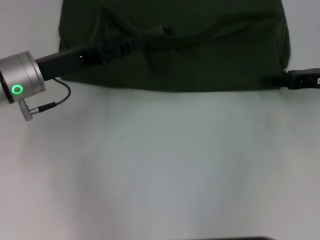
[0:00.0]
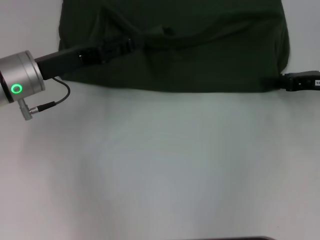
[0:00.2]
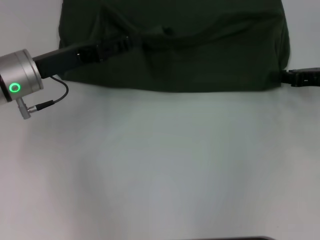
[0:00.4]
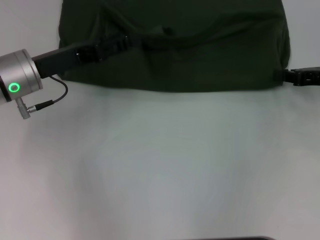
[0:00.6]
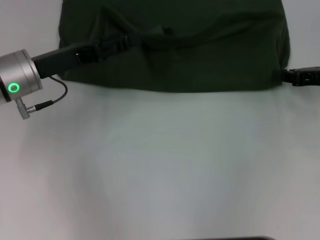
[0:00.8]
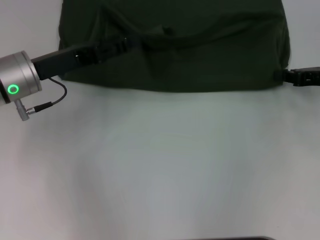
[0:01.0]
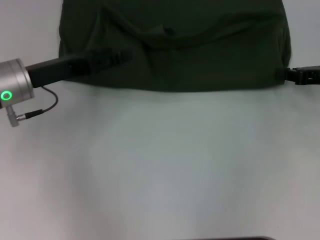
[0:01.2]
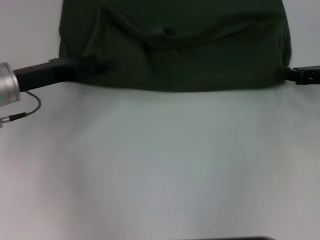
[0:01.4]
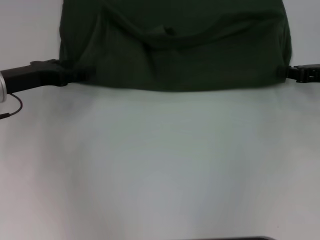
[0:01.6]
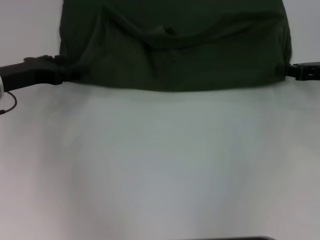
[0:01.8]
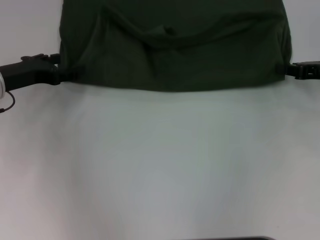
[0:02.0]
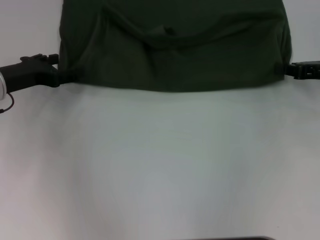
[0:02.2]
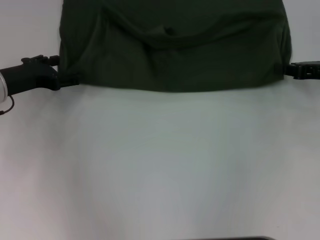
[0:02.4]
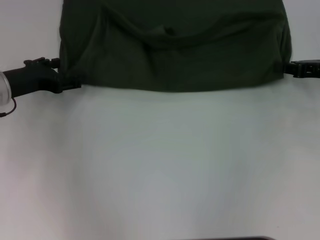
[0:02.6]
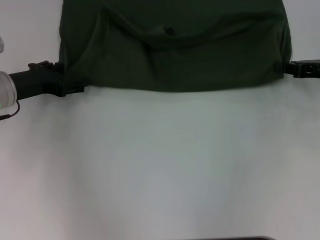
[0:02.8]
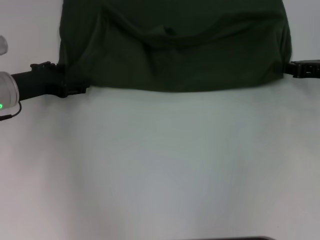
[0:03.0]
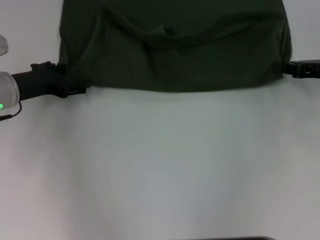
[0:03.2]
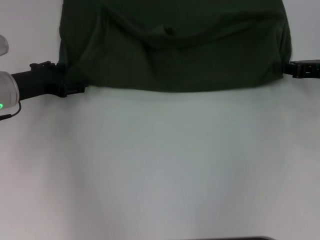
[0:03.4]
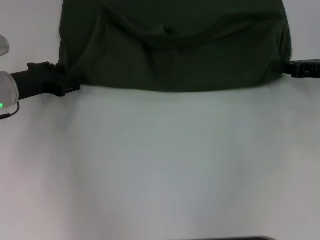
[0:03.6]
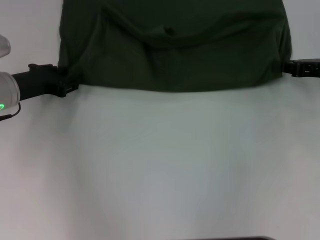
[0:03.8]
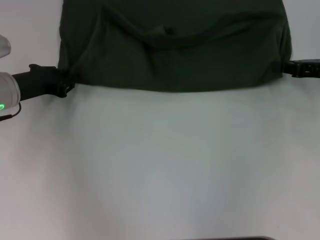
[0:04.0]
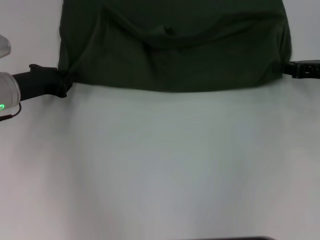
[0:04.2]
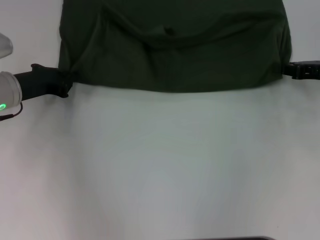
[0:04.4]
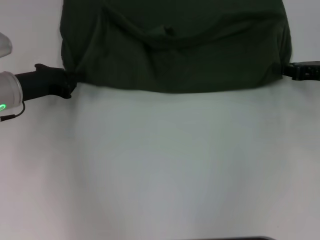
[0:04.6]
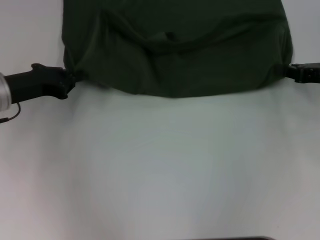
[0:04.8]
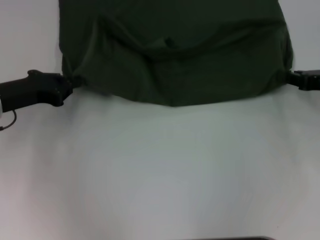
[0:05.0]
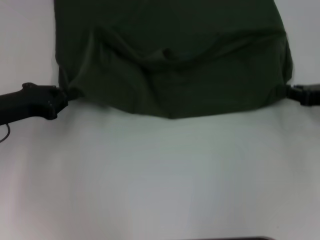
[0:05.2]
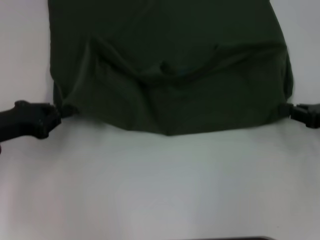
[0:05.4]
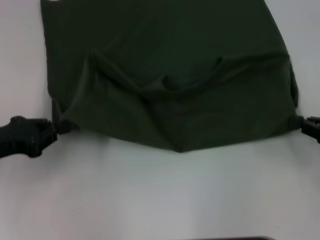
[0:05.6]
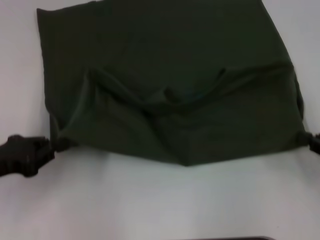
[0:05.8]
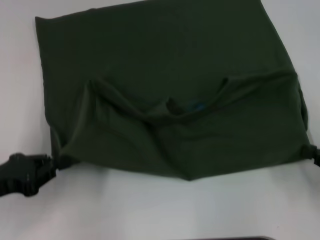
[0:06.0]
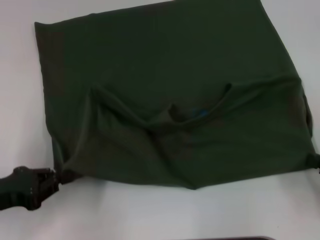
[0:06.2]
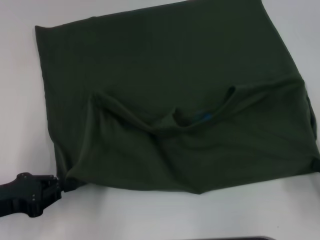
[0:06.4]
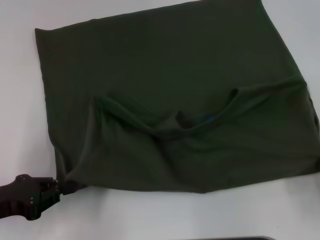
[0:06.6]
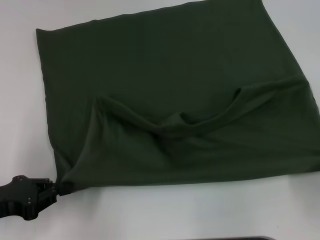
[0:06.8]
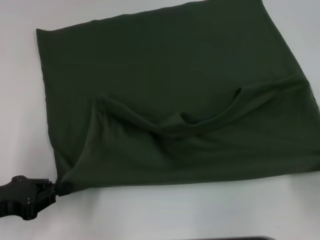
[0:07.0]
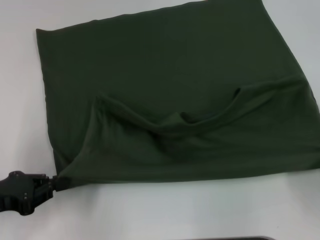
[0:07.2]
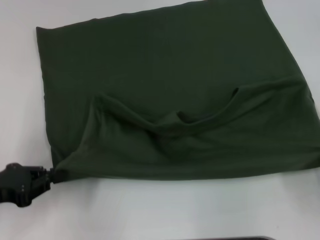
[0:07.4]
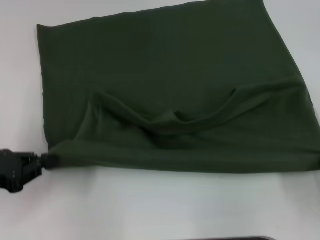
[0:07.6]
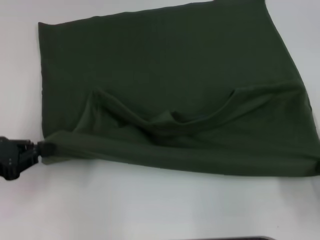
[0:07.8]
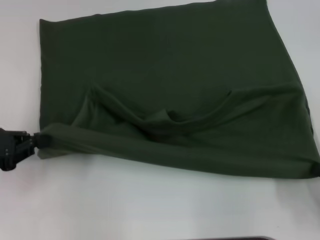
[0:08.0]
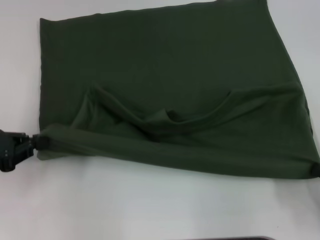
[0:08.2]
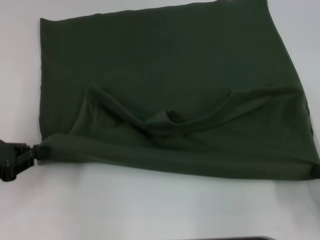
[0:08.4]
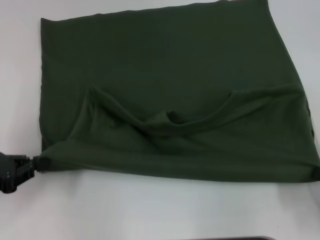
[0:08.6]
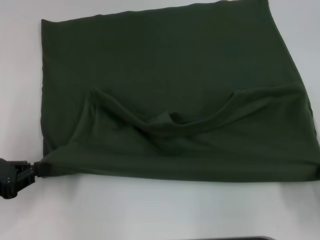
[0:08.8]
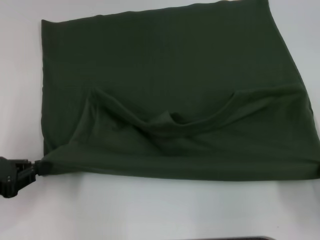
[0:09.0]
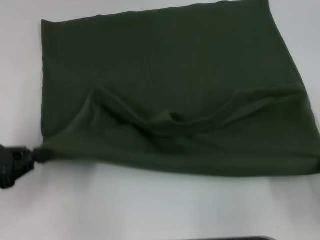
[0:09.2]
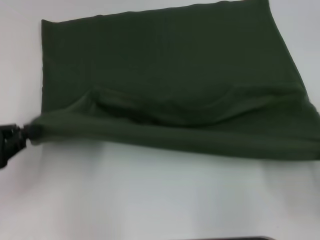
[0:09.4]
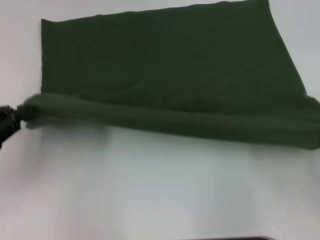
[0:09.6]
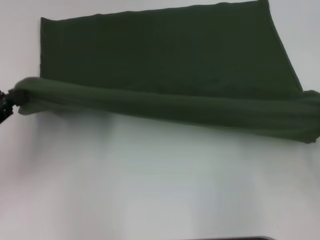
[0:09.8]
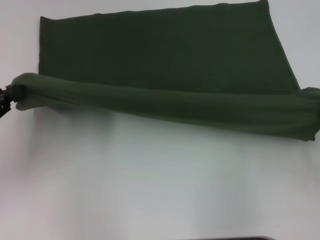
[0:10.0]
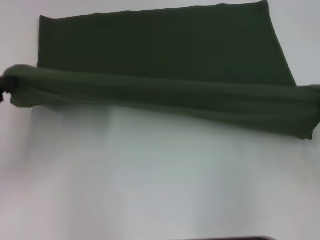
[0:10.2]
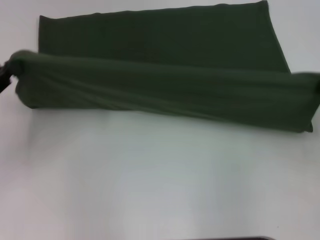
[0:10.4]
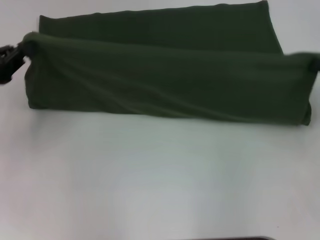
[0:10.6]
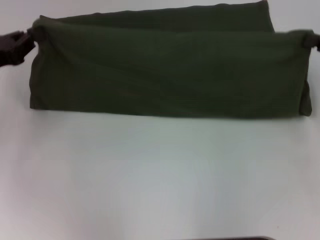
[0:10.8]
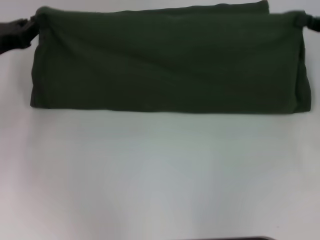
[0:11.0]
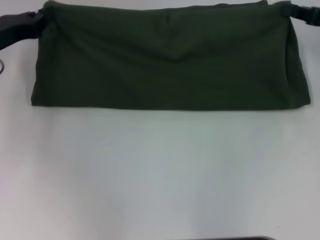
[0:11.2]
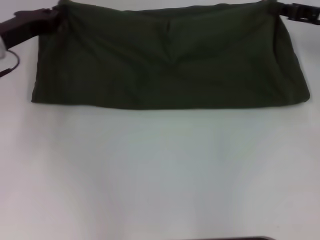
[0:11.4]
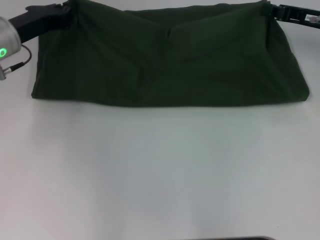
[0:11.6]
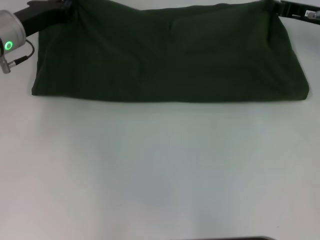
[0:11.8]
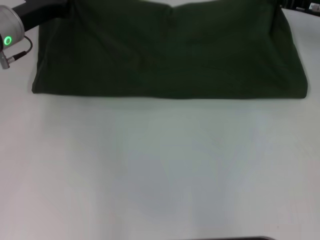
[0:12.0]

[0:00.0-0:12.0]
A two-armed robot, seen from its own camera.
Step, 0:00.0 to 0:07.4: Pull the clothes with your left hand.
Step, 0:00.0 to 0:07.4: Pull the clothes with your right hand.
0:00.0 to 0:01.6: The right gripper closes its fingers. The left gripper is displaced to the left by roughly 5 cm.
0:03.0 to 0:04.4: The left gripper closes its fingers.
0:04.4 to 0:06.0: The two grippers go about 15 cm backward.
0:06.0 to 0:09.0: The grippers make only small movements.
0:09.0 to 0:10.4: The left gripper travels forward by some 5 cm; the right gripper is displaced forward and upward by some 10 cm.
0:10.4 to 0:12.0: The right gripper travels forward by roughly 20 cm. The left gripper heads forward and to the right, covering roughly 20 cm.

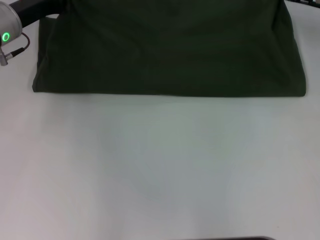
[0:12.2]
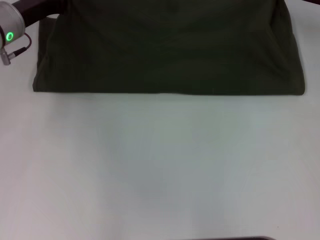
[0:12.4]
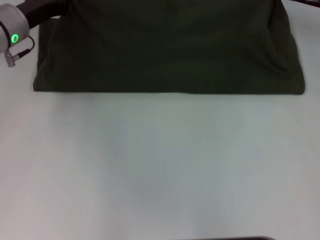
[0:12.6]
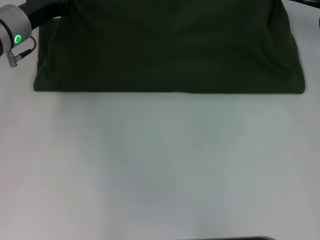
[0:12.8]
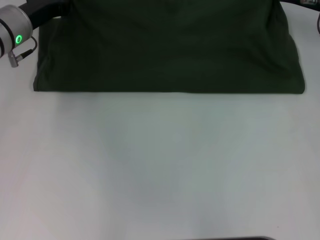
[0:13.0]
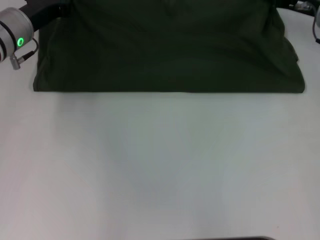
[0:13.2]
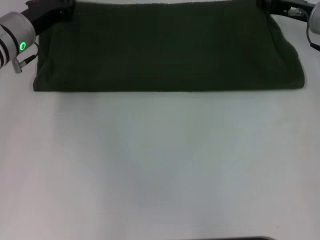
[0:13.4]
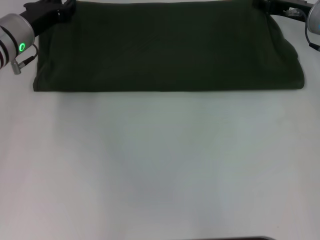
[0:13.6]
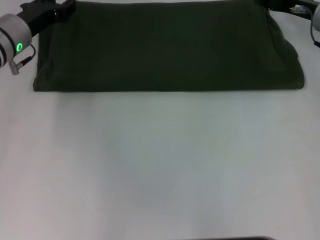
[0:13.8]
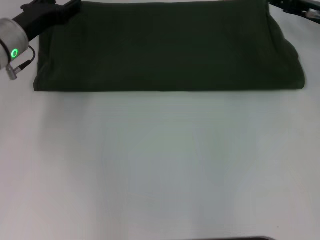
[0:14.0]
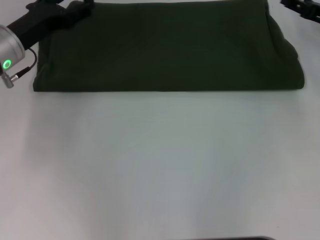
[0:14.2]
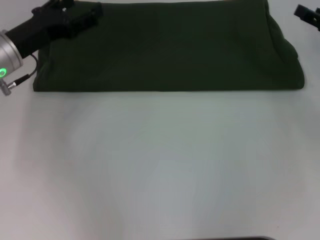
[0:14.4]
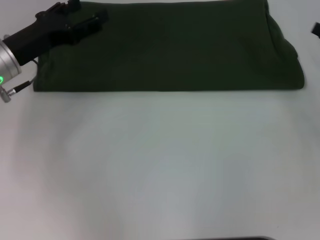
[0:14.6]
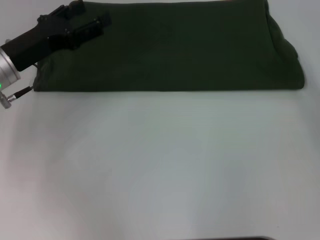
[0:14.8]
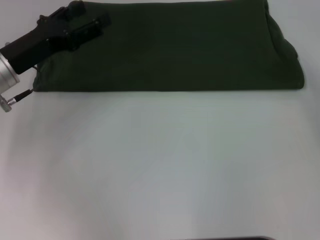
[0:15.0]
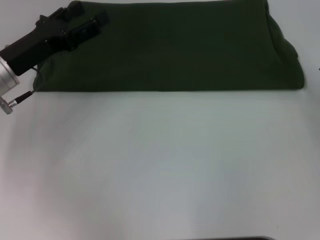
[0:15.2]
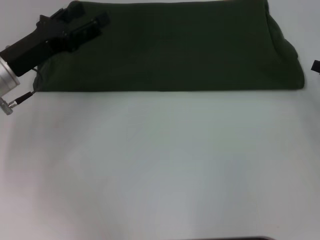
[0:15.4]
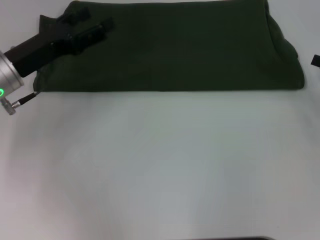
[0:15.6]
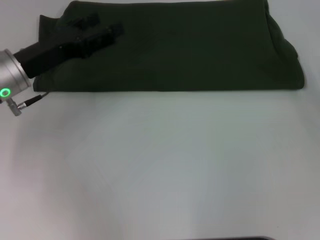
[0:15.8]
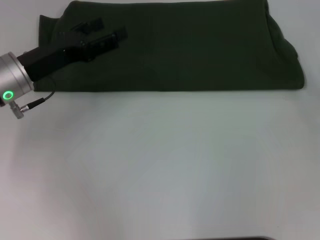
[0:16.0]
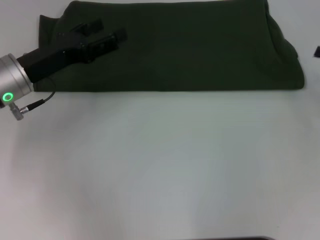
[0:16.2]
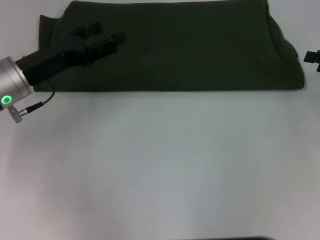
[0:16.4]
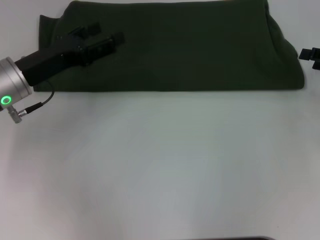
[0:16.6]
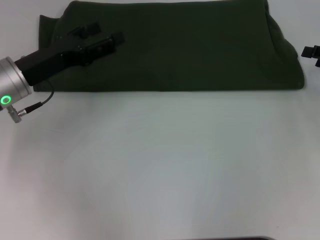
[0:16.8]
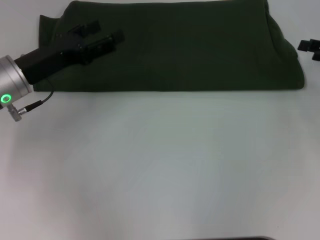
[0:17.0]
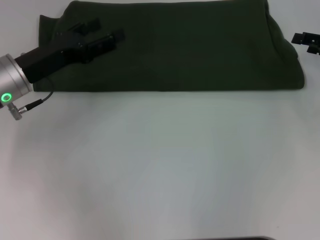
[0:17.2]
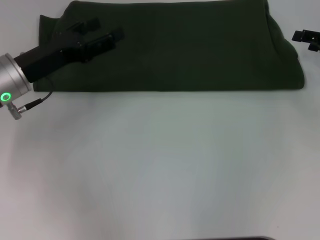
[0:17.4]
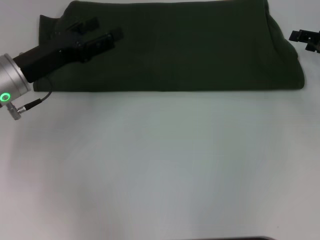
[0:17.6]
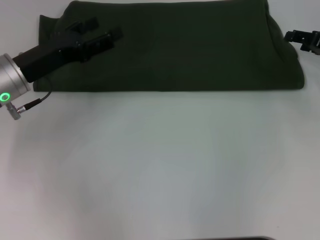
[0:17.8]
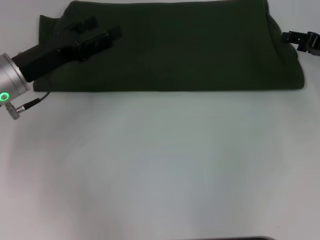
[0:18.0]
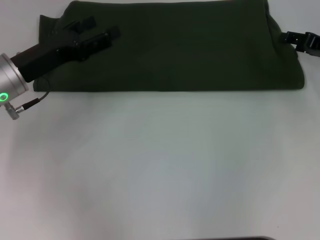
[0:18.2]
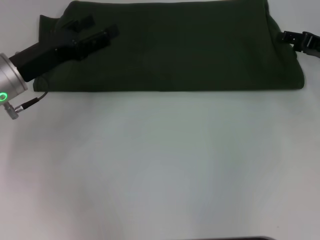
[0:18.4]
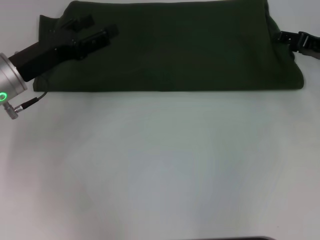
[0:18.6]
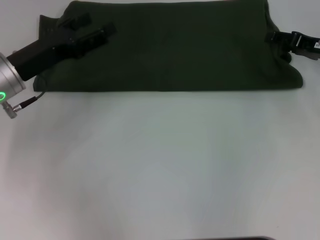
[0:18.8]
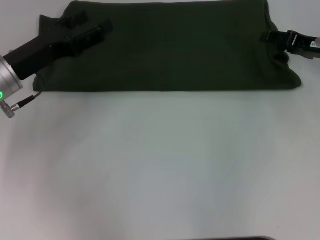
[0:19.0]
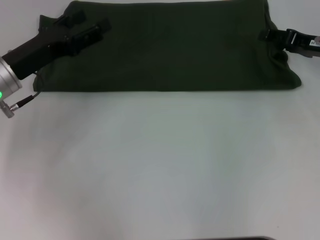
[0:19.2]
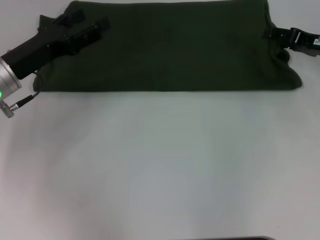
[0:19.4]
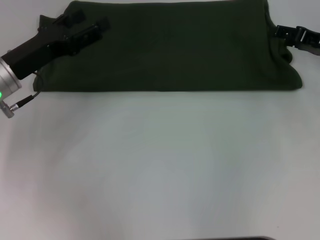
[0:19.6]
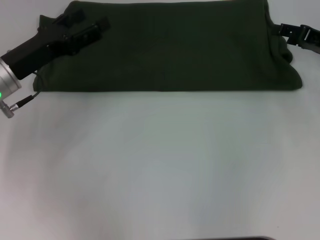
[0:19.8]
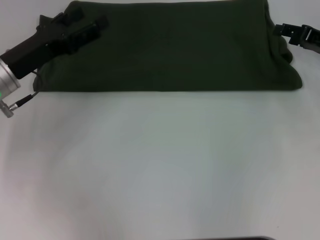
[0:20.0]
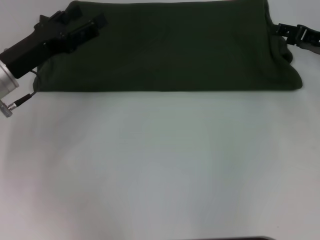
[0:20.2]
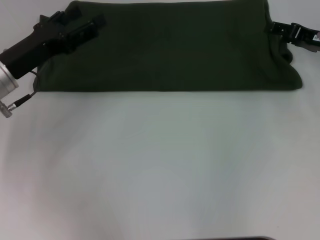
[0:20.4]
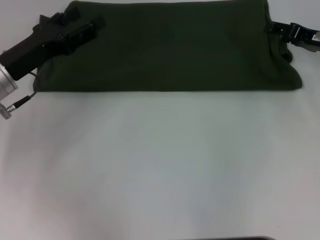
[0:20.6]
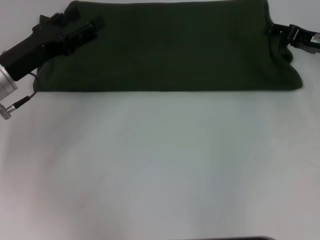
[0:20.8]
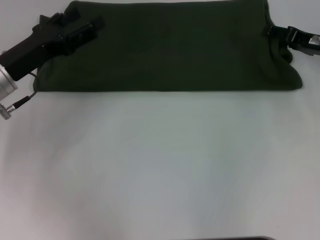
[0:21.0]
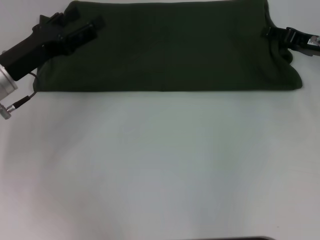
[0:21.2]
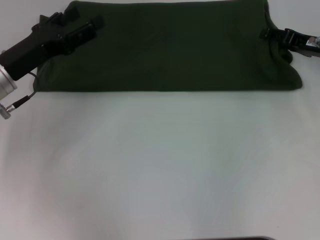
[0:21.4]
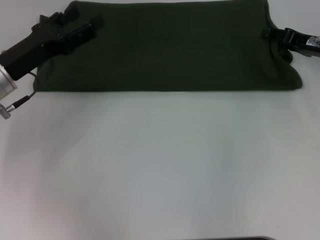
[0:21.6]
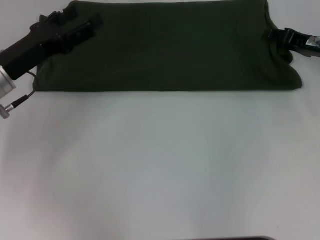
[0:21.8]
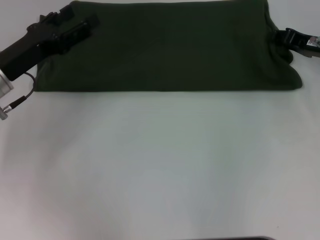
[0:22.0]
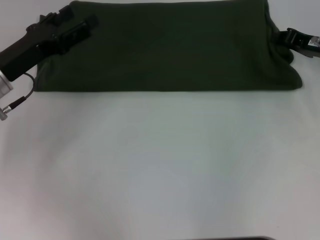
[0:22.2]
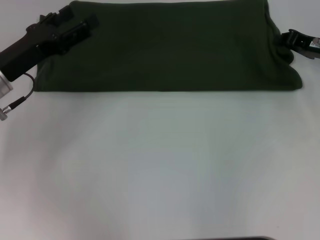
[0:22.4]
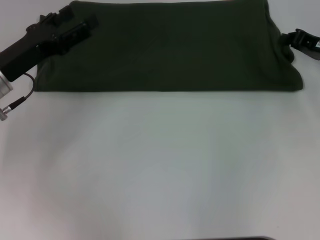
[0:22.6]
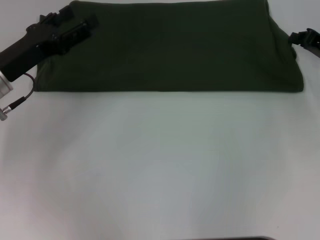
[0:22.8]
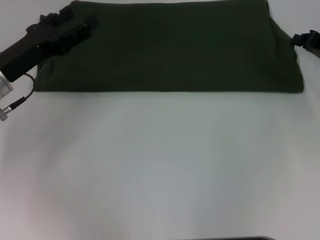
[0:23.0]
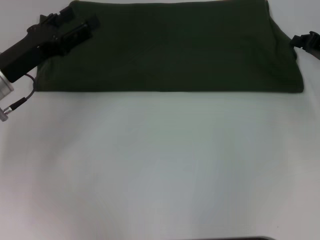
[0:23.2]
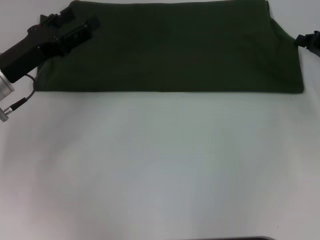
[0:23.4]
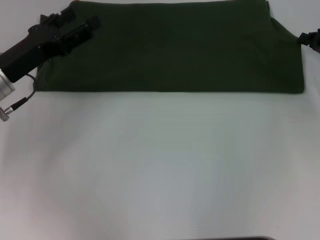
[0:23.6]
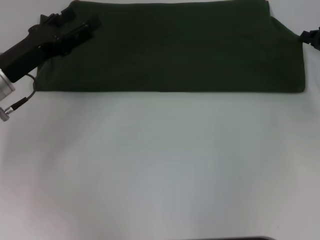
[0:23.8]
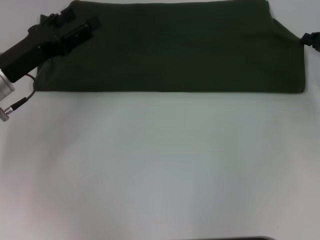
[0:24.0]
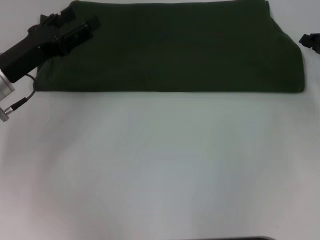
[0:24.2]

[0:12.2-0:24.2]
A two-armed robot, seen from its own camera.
0:12.2 to 0:13.8: The left gripper opens its fingers. The right gripper opens its fingers.
0:13.8 to 0:15.2: The left gripper goes some 10 cm backward, and opens up, while the right gripper heads backward and to the right, covering about 20 cm.
0:16.6 to 0:18.2: The right gripper changes place by approximately 5 cm.
0:18.2 to 0:21.2: The grippers make only small movements.
0:21.2 to 0:22.6: The right gripper closes up.
0:22.6 to 0:24.2: The grippers move only a little.
